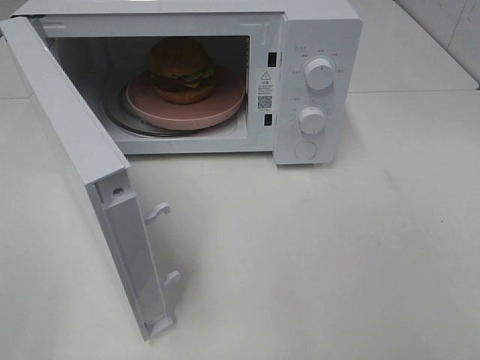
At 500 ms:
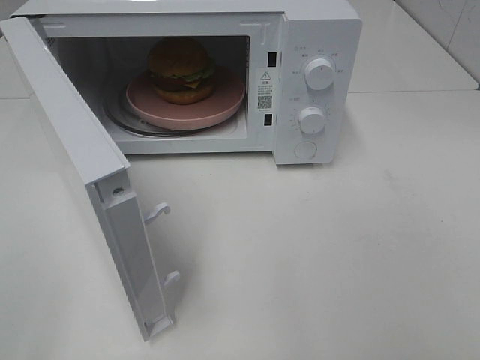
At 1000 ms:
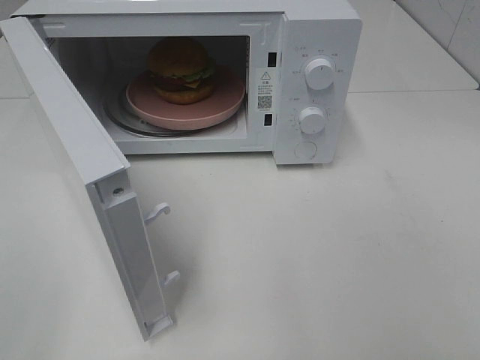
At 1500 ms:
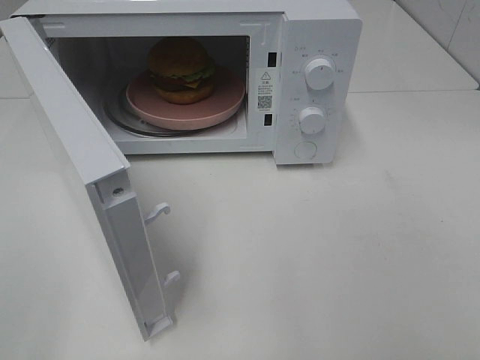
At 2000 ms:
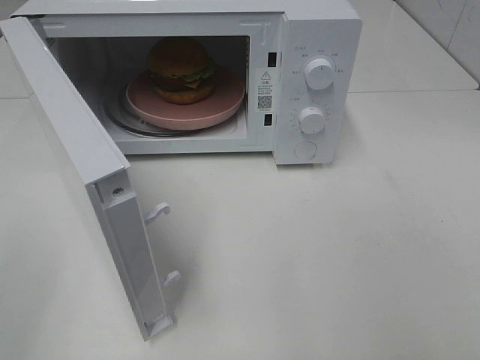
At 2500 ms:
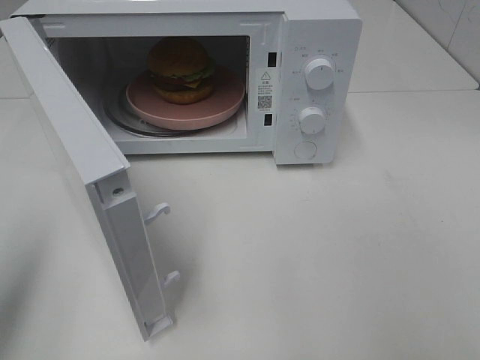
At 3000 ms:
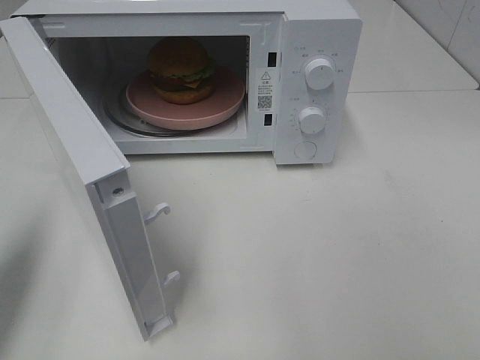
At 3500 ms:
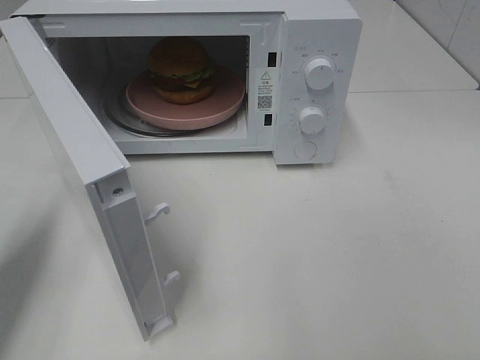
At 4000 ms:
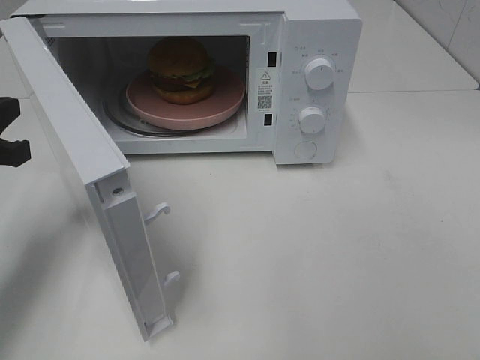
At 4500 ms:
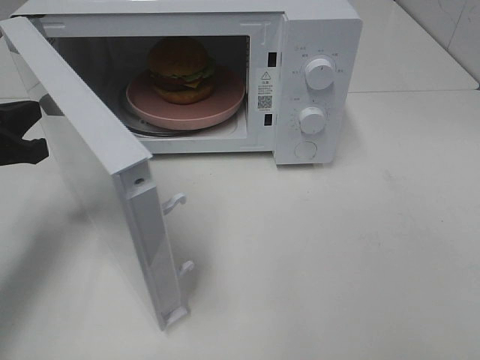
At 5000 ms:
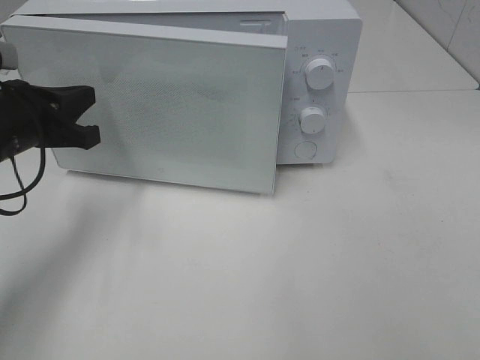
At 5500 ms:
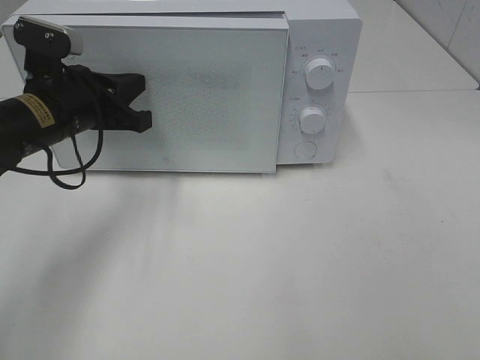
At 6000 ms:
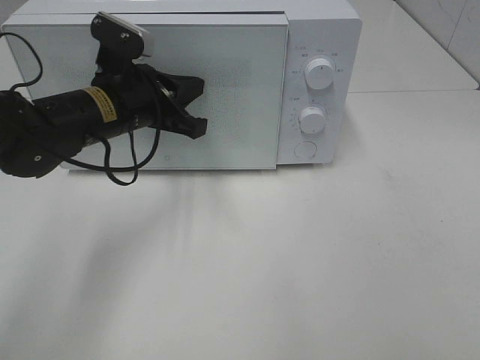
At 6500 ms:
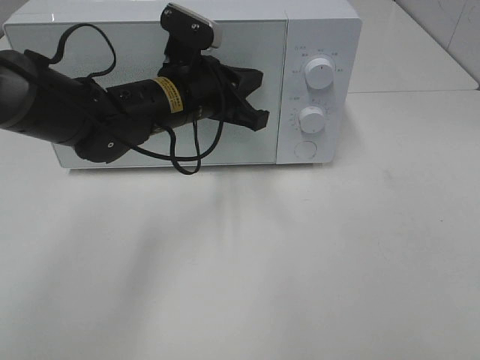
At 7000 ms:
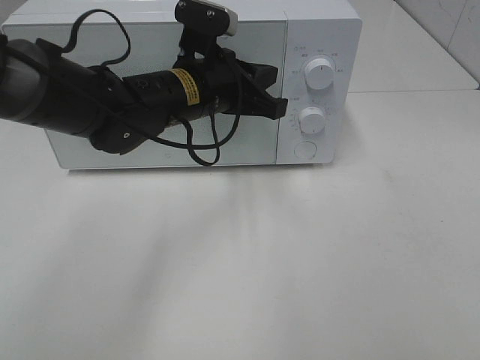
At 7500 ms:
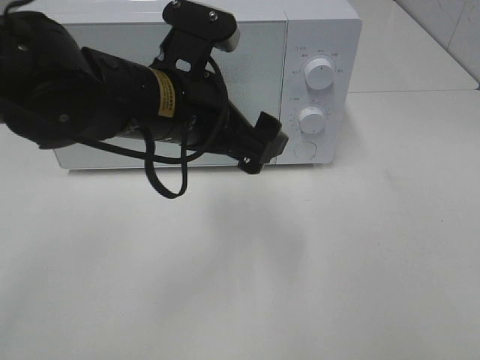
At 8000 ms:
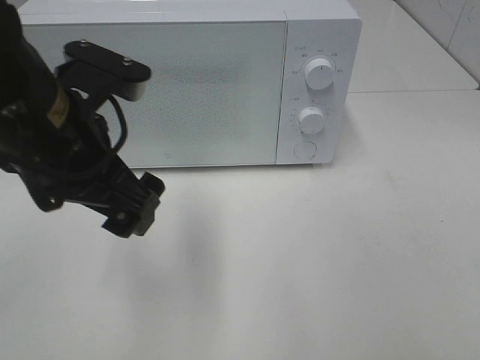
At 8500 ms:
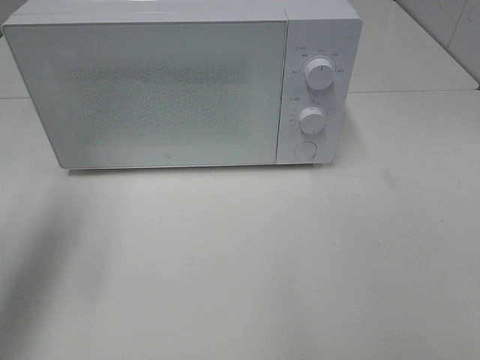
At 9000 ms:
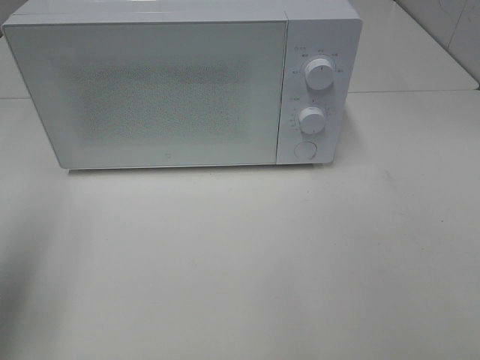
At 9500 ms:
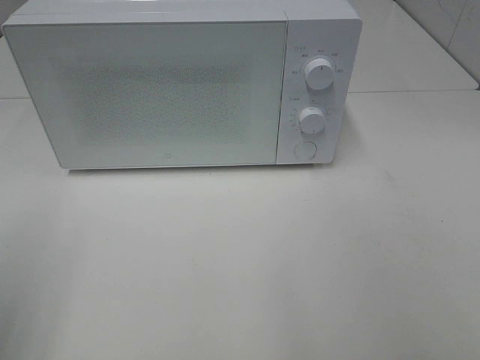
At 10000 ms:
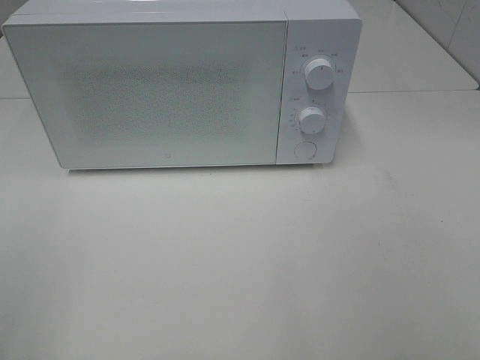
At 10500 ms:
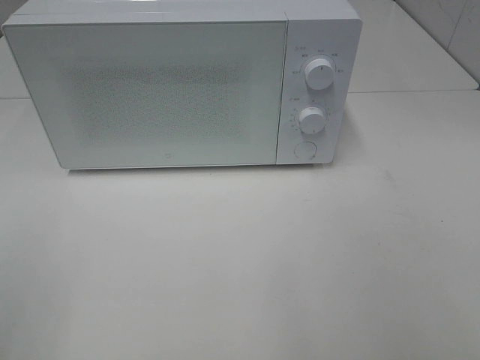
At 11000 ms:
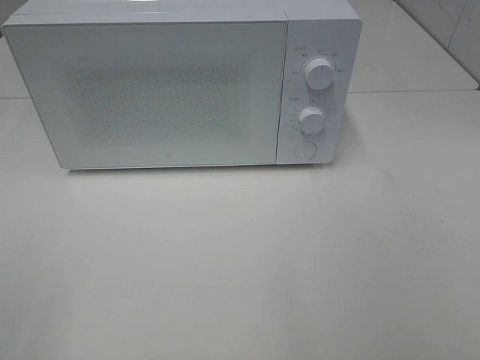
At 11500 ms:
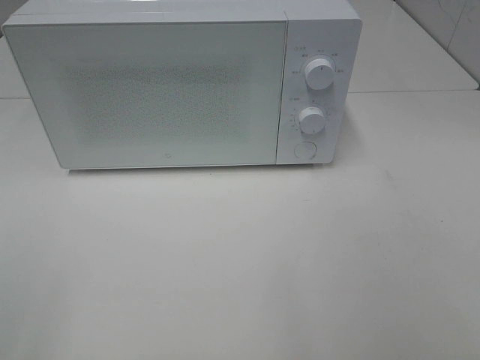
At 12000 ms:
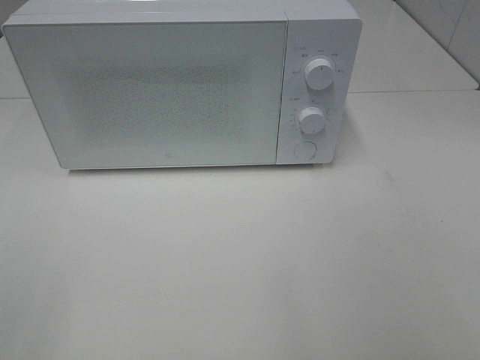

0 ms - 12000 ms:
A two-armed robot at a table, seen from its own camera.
Task of the whole recording: Heat the burger.
Step, 0 ms - 6500 ms: Left hand: close the microwave door.
2000 ms - 4000 ms: The left gripper shifts about 25 cm forward and downward, and closes.
4000 ms - 6000 ms: The left gripper is displaced to the right and forward by some 20 cm.
6000 ms - 8000 ms: The left gripper heads backward and upward, covering roughly 15 cm, and opens up.
8000 ms - 10000 ms: The left gripper moves to the left and backward, some 25 cm.

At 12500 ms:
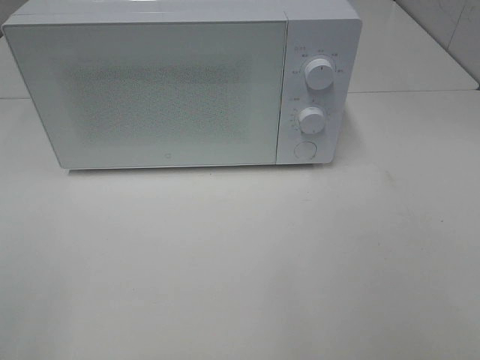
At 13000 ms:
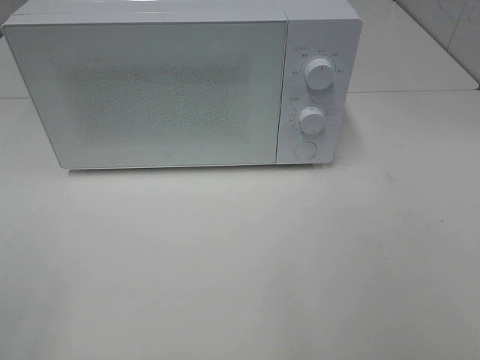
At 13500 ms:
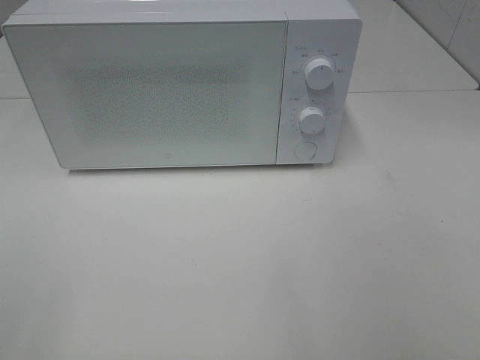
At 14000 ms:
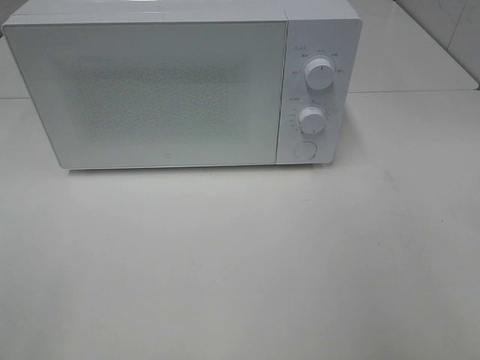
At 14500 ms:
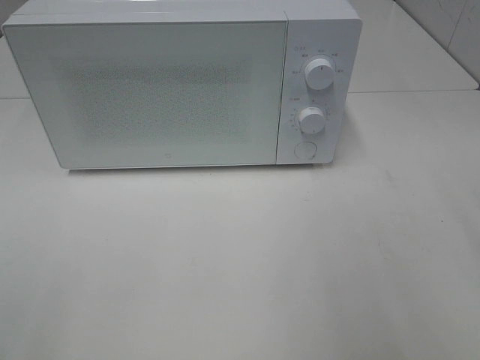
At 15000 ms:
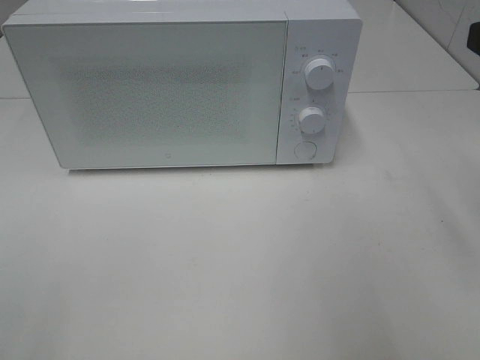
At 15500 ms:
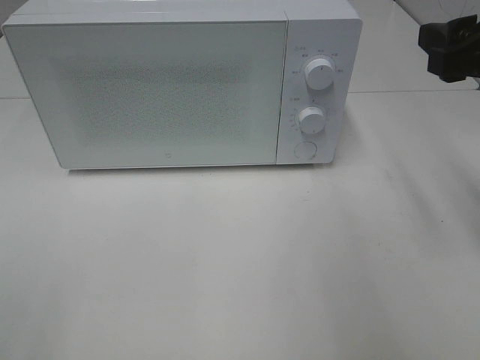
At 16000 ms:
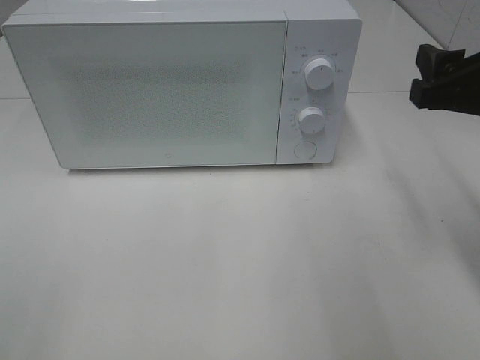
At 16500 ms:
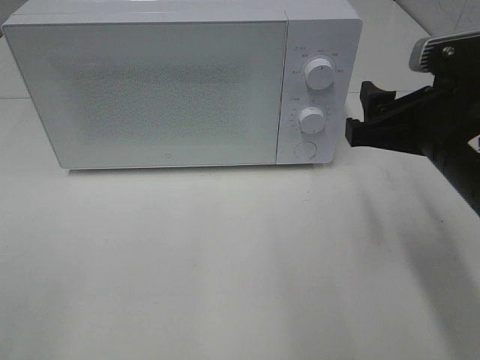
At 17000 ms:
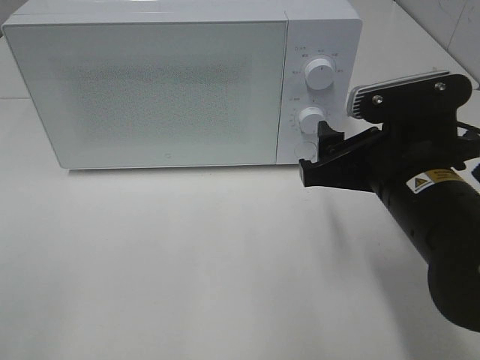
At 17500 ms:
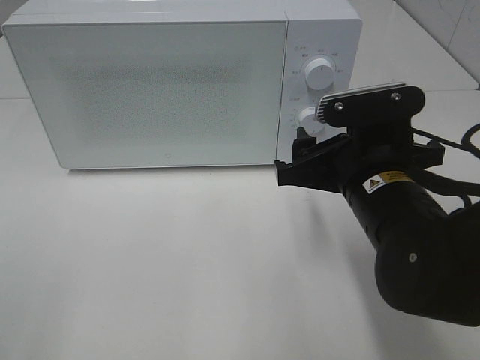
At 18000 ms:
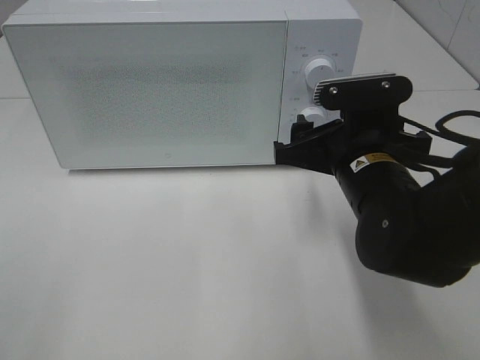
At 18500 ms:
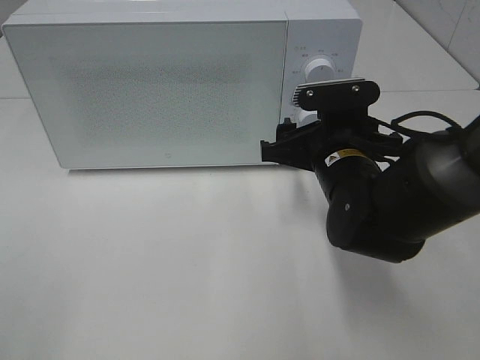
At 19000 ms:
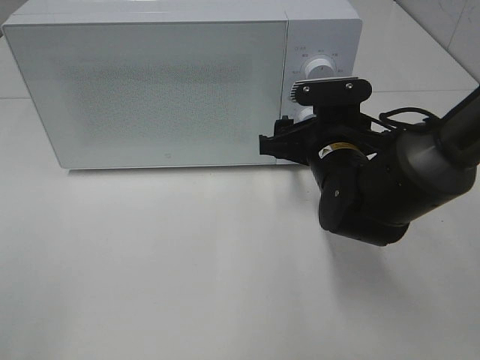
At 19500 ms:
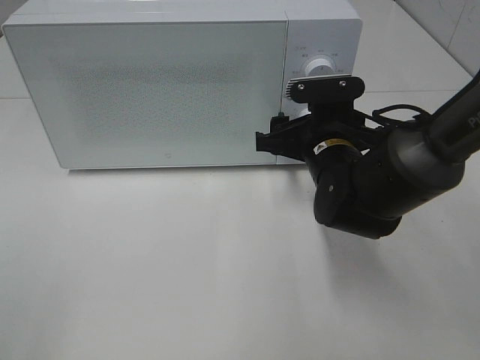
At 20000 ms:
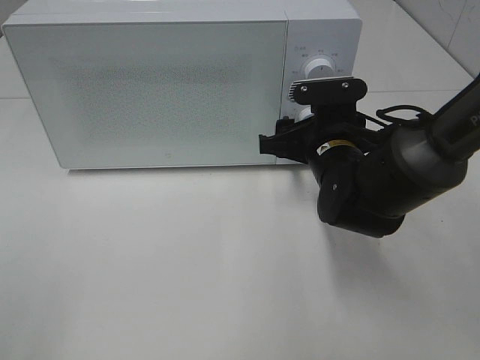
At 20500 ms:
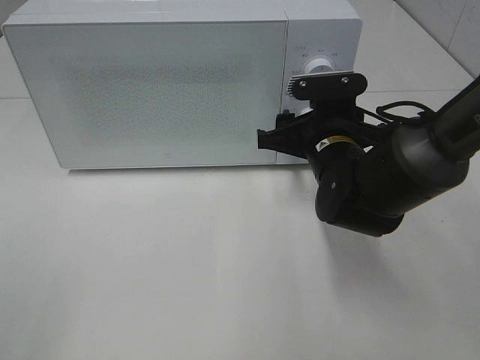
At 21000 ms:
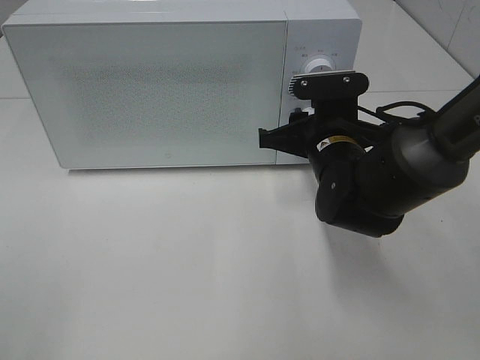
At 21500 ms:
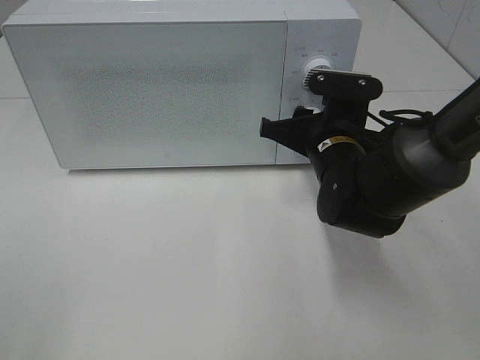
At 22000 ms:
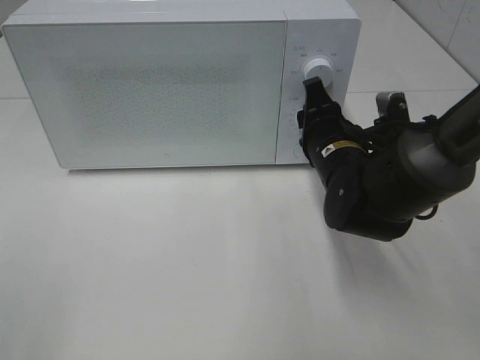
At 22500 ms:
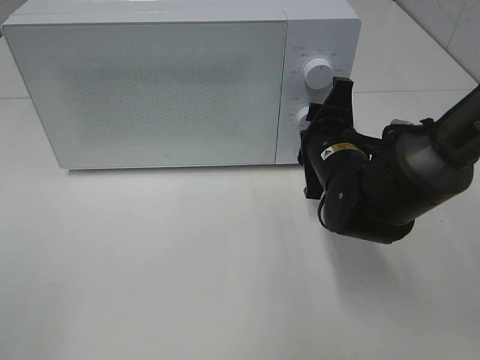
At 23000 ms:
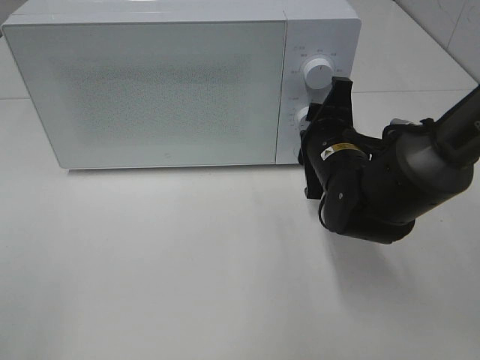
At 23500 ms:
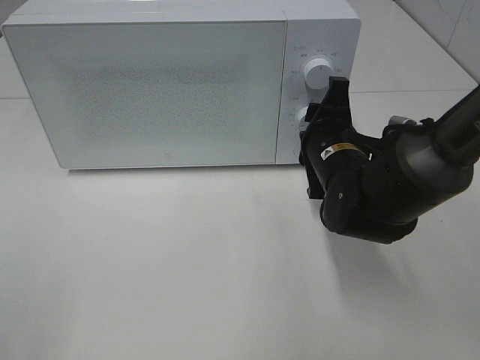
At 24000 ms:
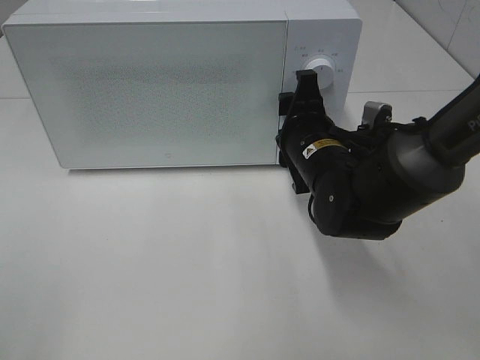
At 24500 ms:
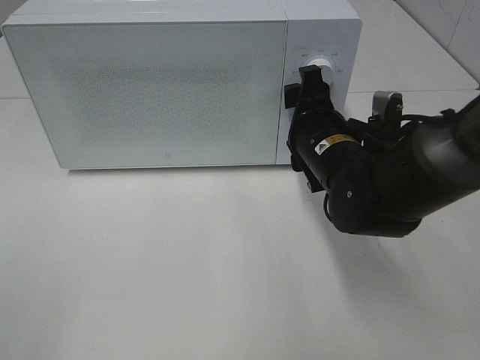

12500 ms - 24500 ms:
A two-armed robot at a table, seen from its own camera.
Task of the whole recording: Heat the burger.
Step, 12500 ms - 23500 ms: Right hand: twist timer button.
14500 ms - 16500 ms: The right gripper is displaced downward, to the left and forward by approximately 15 cm.
16500 ms - 18500 ms: The right gripper shifts about 15 cm downward, forward and to the left.
18500 ms - 20500 ms: The grippers move only a little.
22500 ms - 24500 ms: The grippers stay close to where they were, moving slightly.

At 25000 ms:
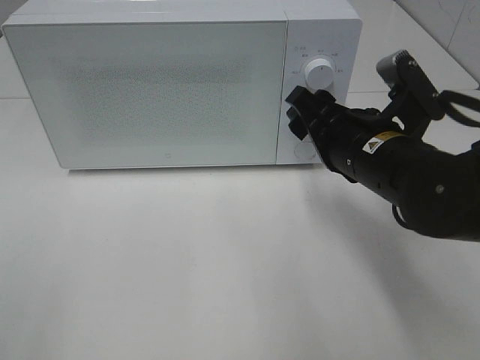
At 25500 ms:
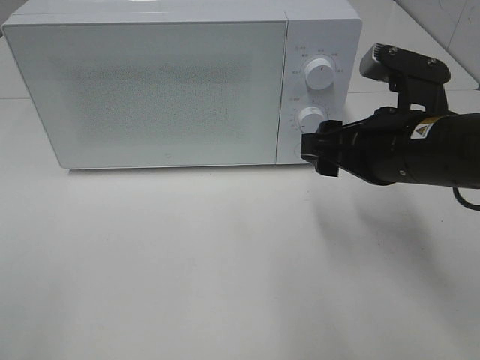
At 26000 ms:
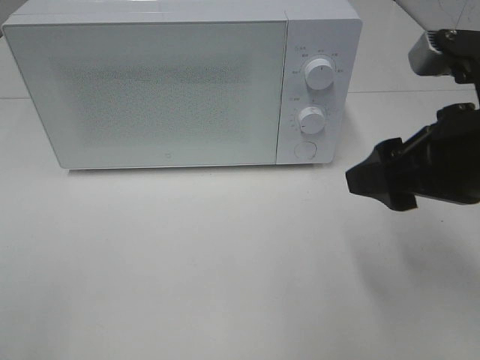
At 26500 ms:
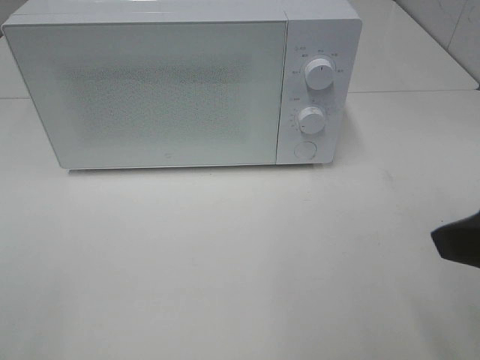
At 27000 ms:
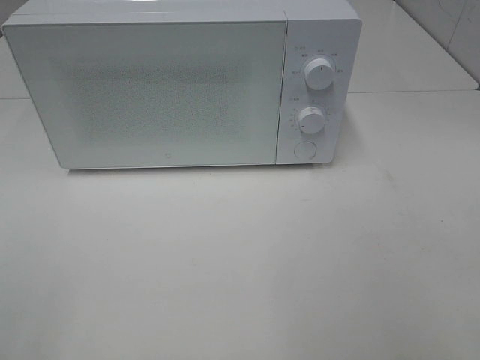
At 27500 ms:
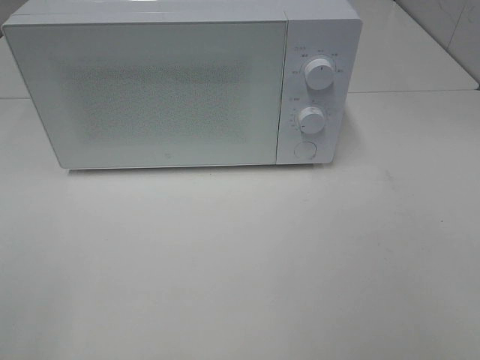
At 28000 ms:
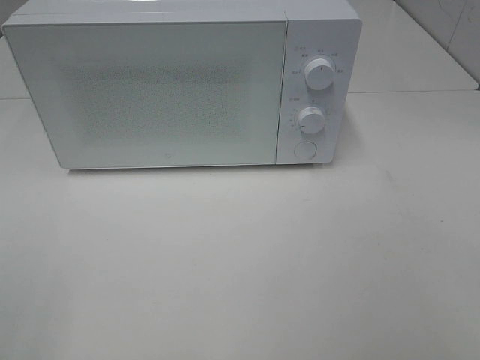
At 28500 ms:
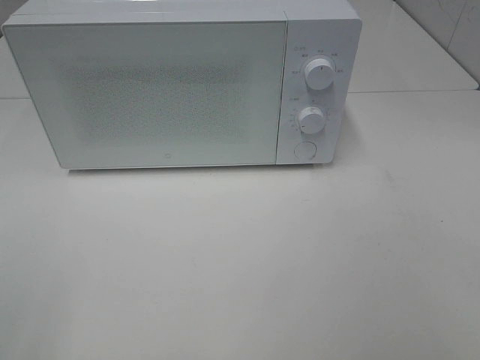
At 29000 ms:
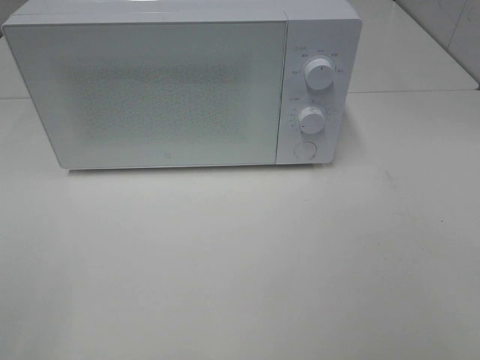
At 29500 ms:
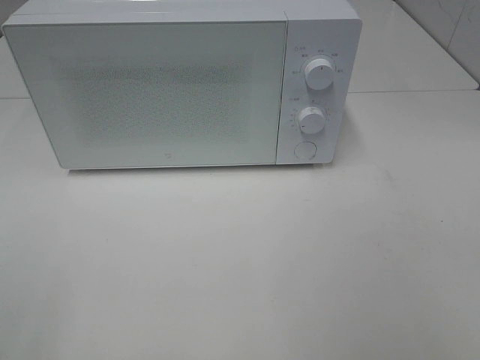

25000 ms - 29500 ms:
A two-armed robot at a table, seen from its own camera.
Task of the whole recording: Heat the burger.
25000 ms - 27000 ms: The right gripper is displaced backward, to the right and upward by some 30 cm.
